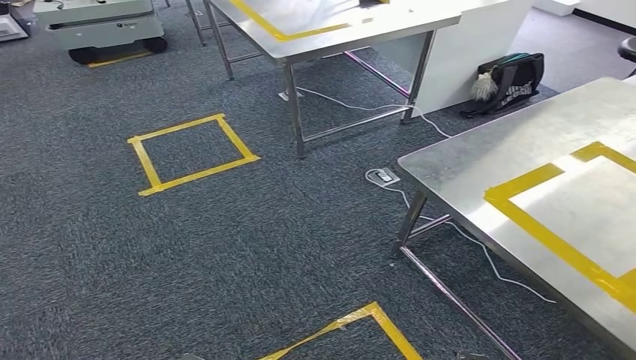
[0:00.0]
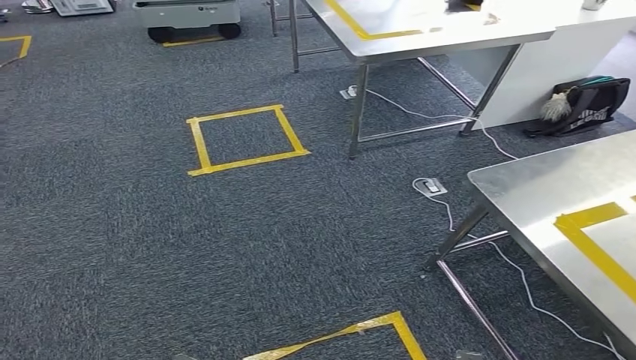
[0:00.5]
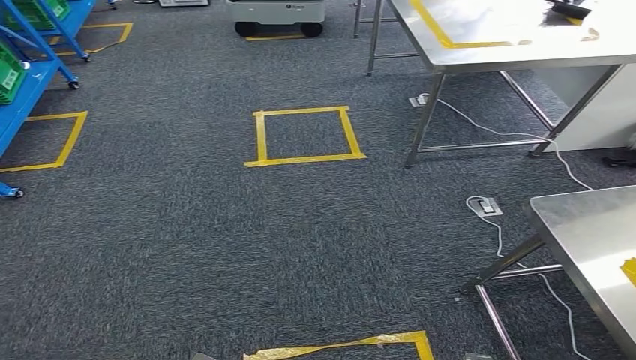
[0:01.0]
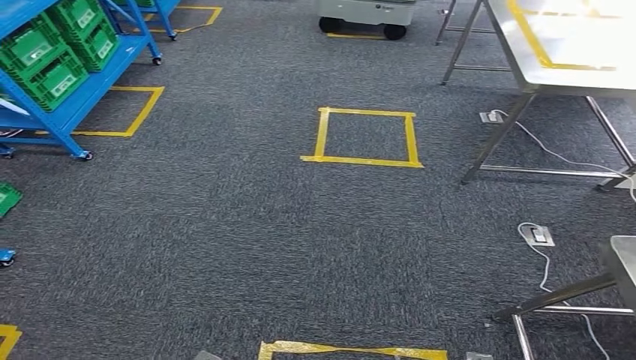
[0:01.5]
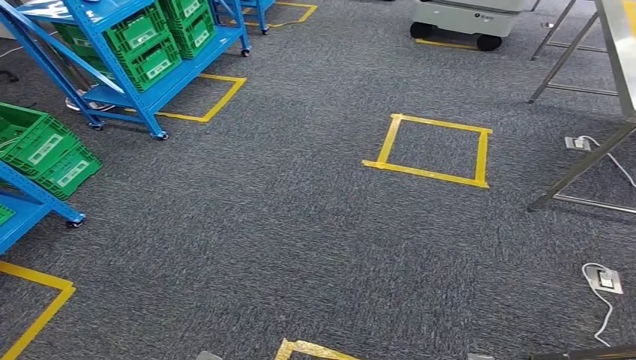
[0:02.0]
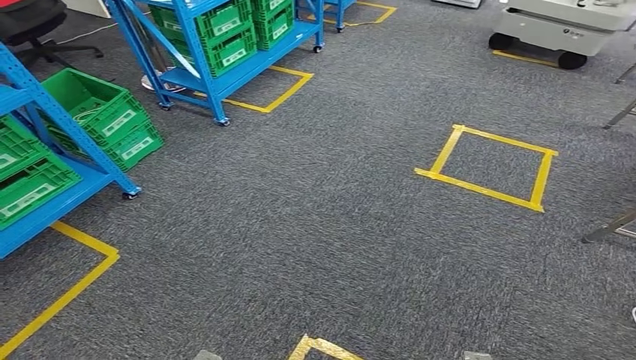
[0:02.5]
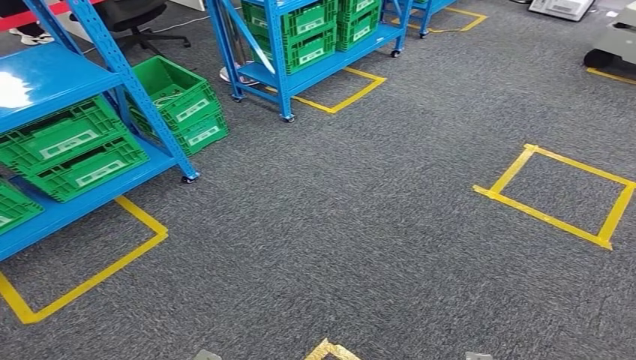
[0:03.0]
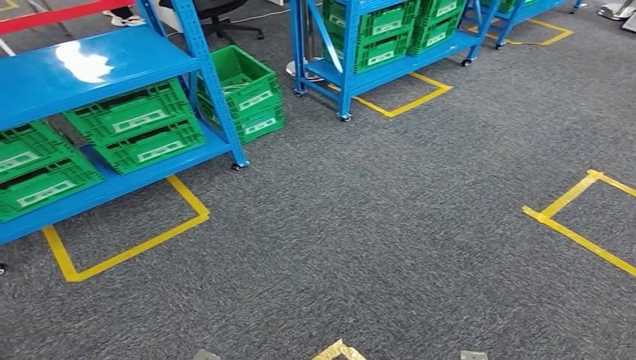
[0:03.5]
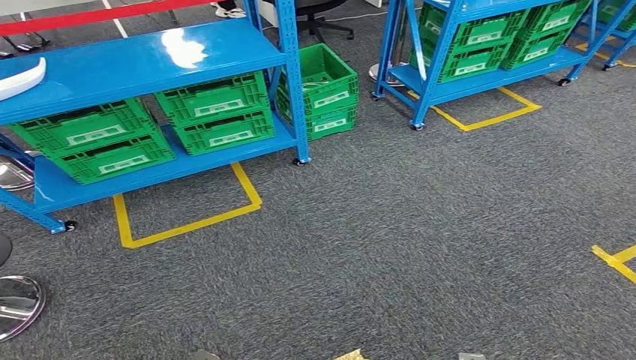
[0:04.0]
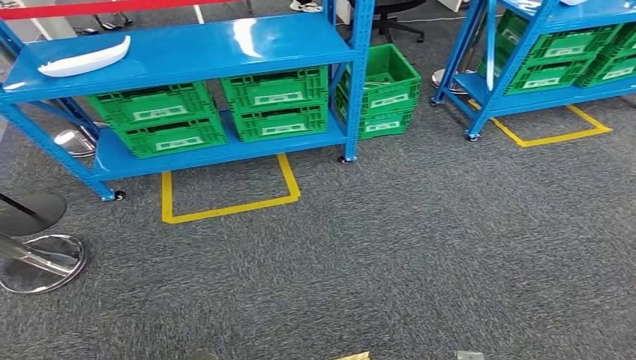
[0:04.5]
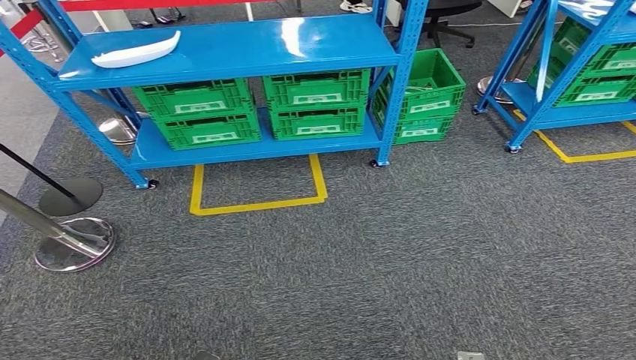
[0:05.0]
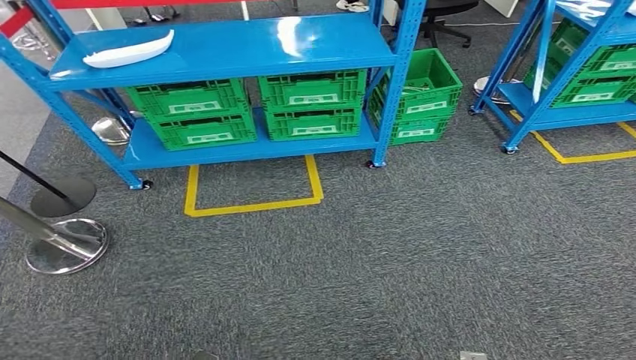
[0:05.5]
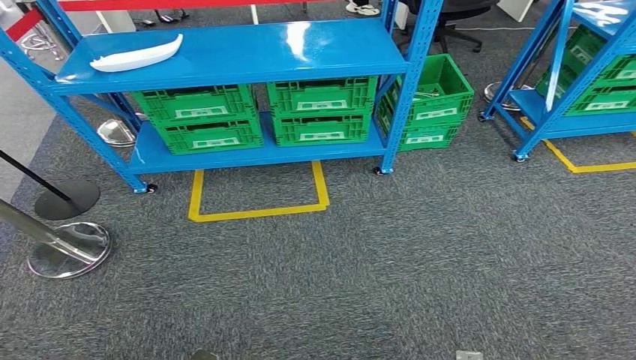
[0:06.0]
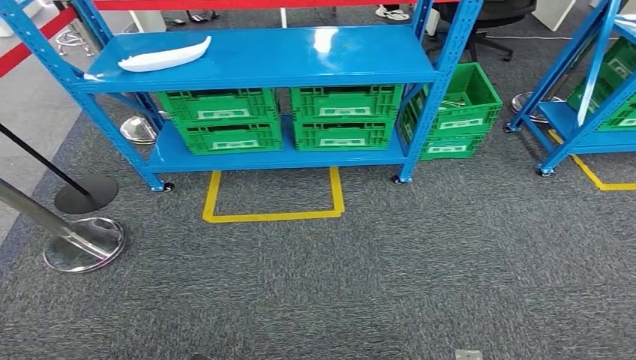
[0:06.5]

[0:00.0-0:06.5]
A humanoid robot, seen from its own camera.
Step, 0:00.0 to 0:06.5: Return to the initial position at the workbench.
